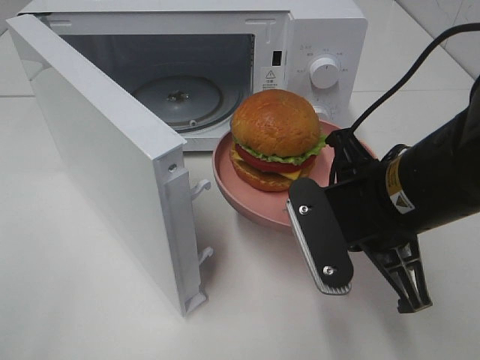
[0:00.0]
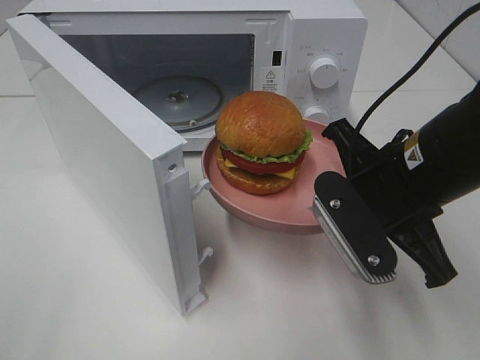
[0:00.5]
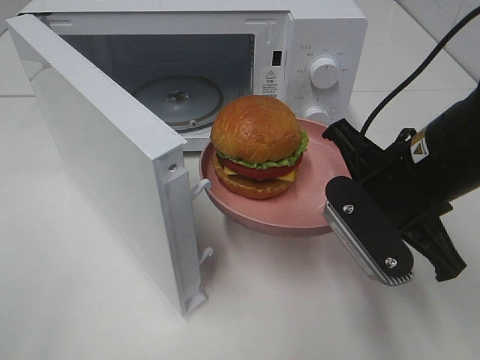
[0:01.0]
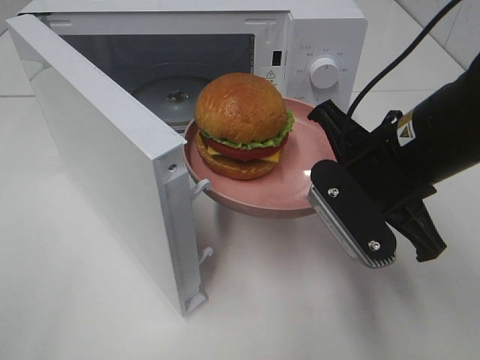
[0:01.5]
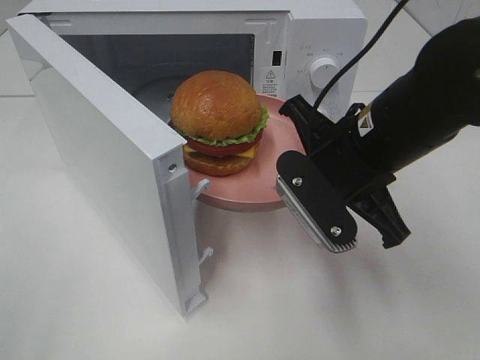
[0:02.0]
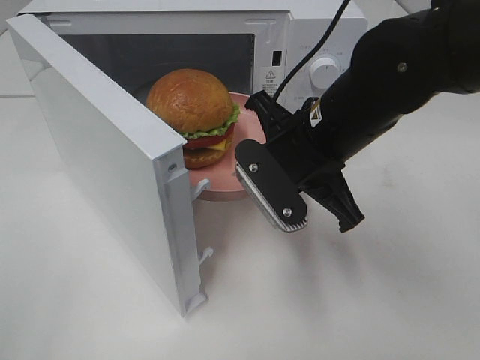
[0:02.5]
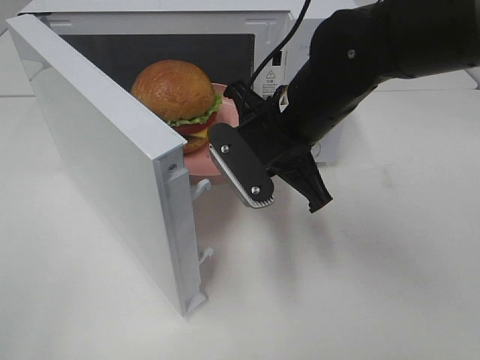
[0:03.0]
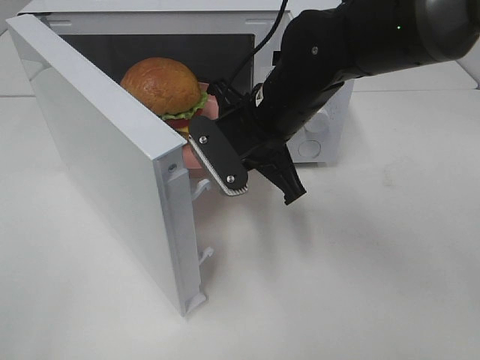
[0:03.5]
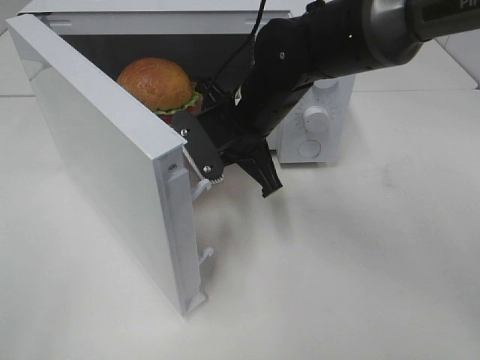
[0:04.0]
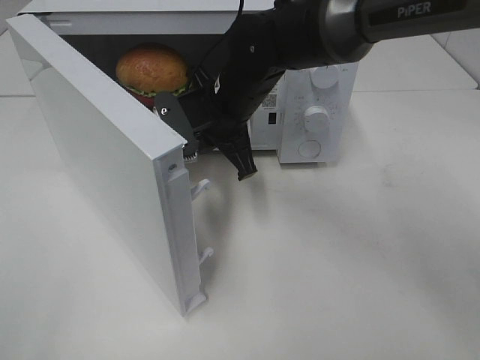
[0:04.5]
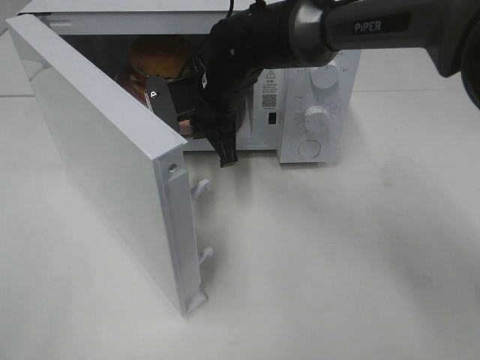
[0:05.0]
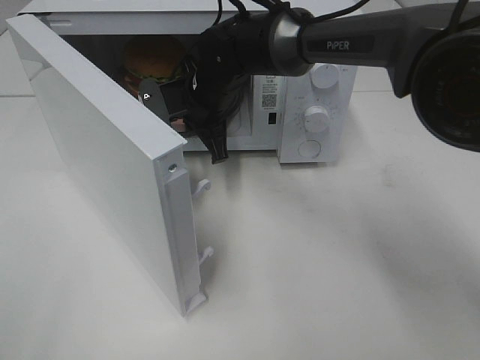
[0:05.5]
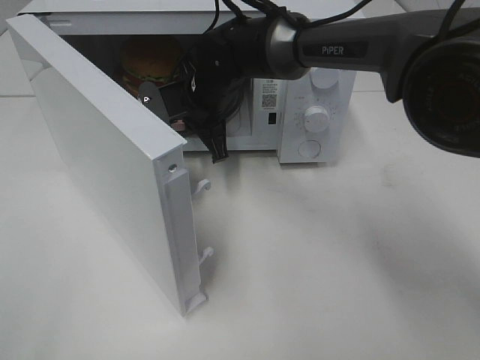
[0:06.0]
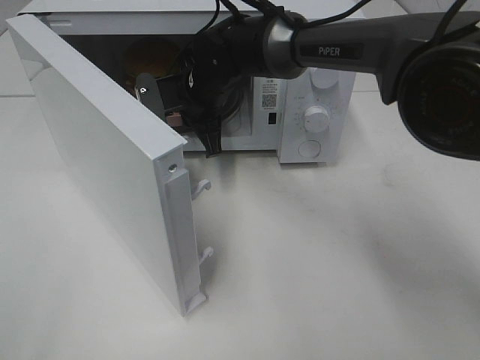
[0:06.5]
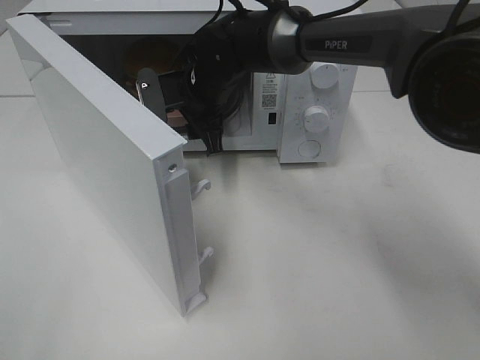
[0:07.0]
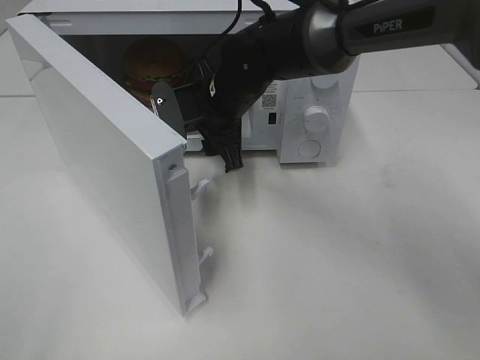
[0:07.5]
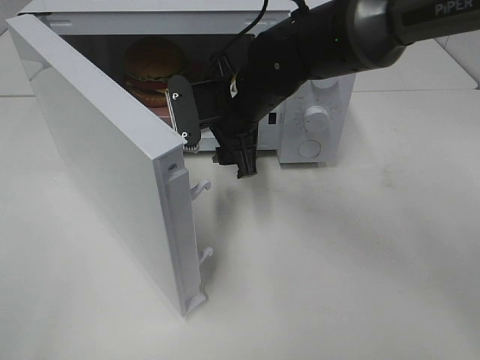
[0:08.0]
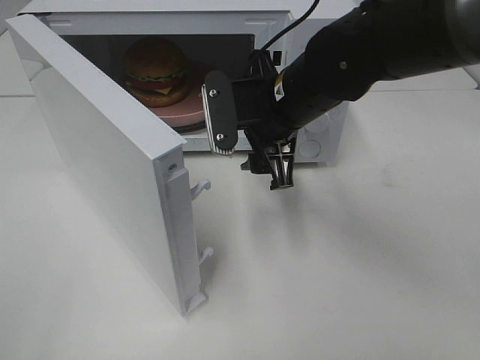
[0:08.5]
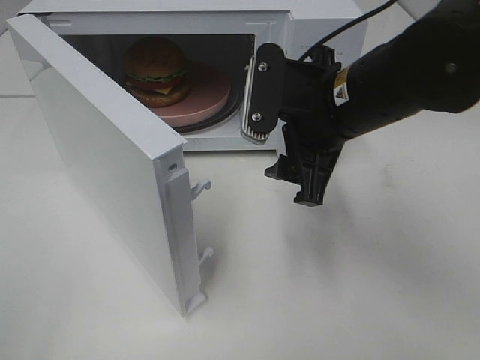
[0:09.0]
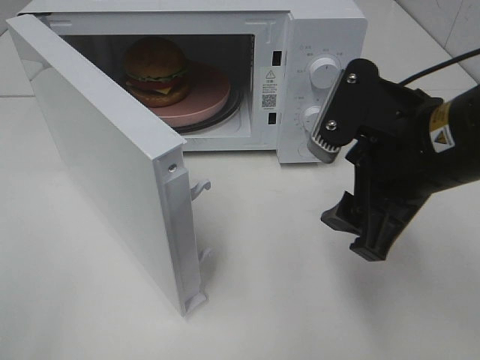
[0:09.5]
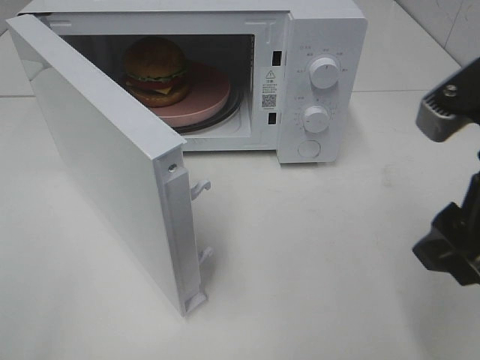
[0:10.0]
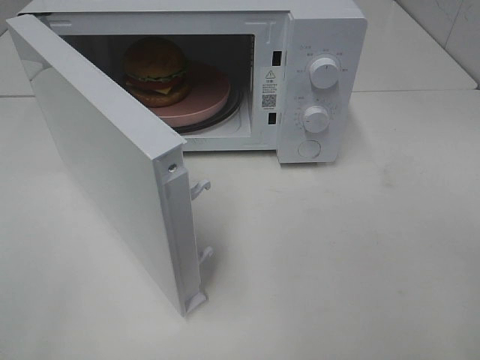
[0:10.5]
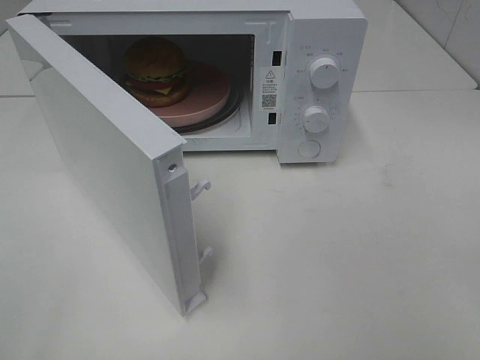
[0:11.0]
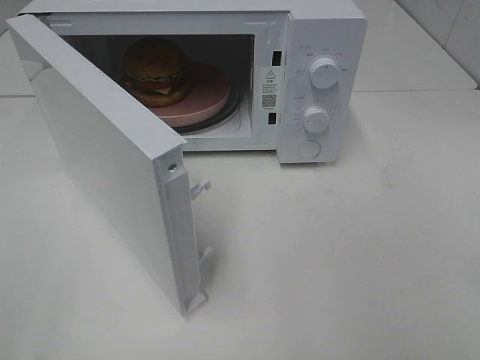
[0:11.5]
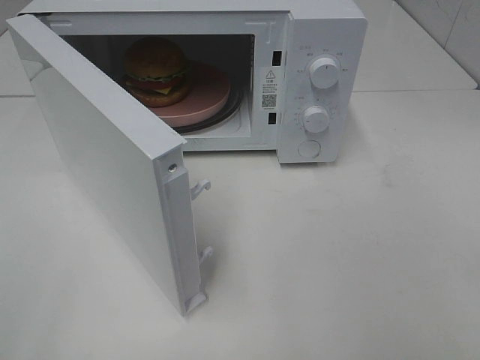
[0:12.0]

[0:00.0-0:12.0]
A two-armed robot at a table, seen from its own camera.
Task of the whole recording: Heat the burger.
Step, 0.0 to 6.5 s: Right hand: place the plate in the microwave.
0.0 to 2.0 s: The right gripper moves roughly 5 cm.
2.0 to 4.0 s: The right gripper is displaced forward and to the left by approximately 15 cm.
4.0 to 6.0 s: The right gripper heads forward and to the left, covering roughly 10 cm.
6.0 to 8.0 s: The right gripper is displaced backward by approximately 5 cm, and opens.
8.0 to 10.0 s: The right gripper goes about 30 cm backward, to the right and upward.
10.0 to 12.0 s: The right gripper goes approximately 20 cm backward and to the right.

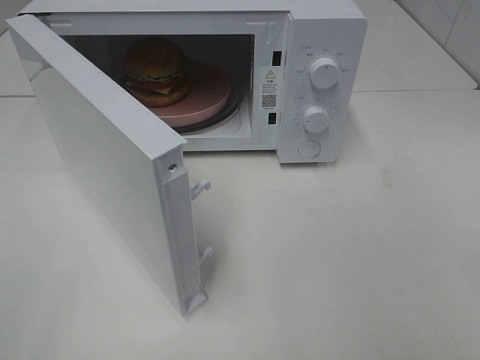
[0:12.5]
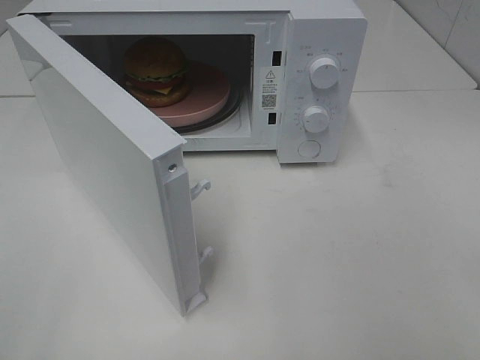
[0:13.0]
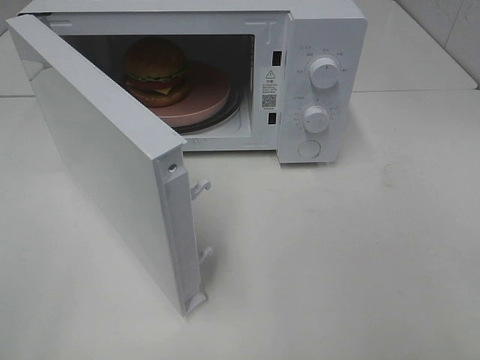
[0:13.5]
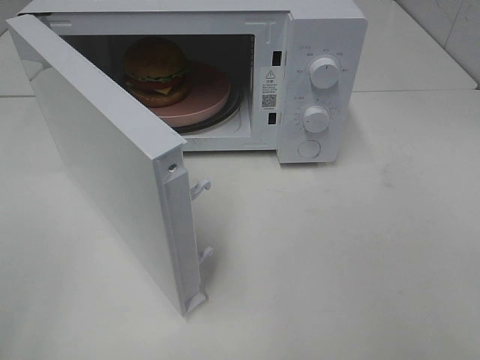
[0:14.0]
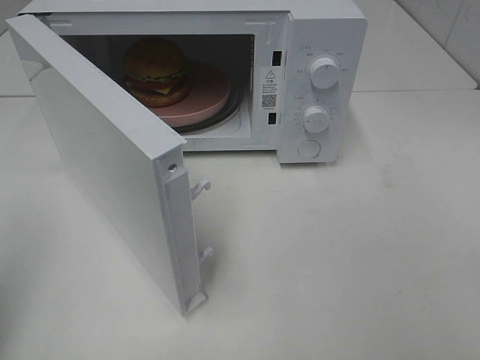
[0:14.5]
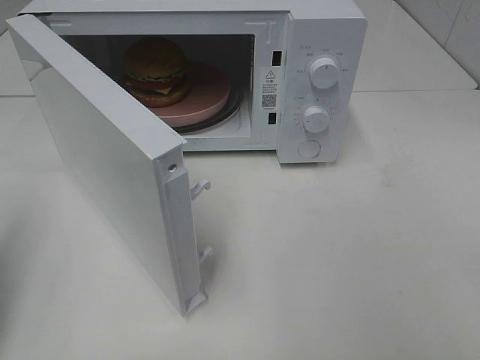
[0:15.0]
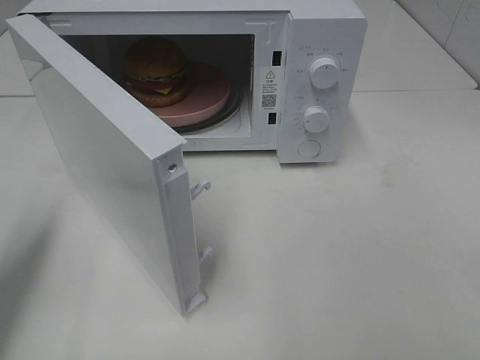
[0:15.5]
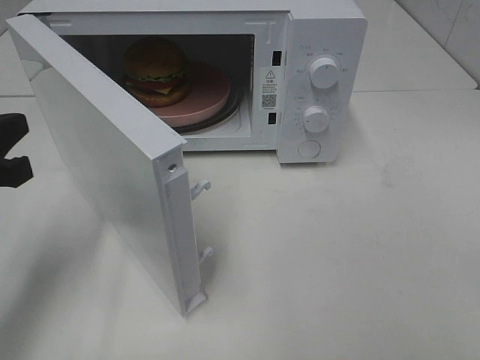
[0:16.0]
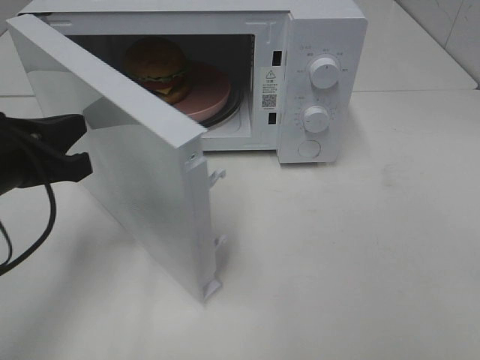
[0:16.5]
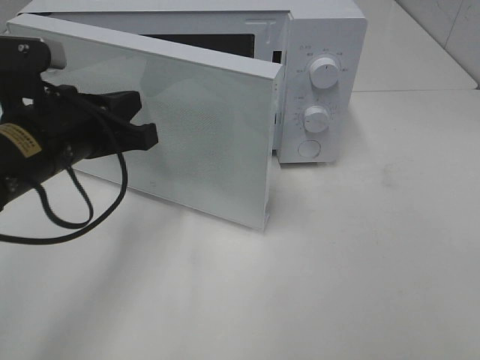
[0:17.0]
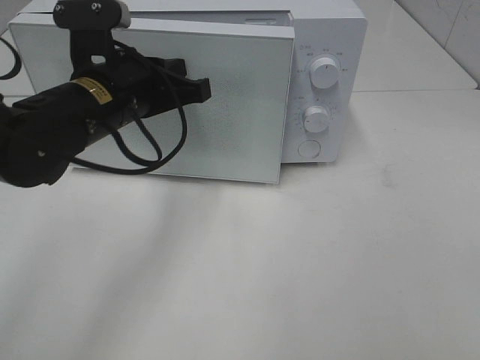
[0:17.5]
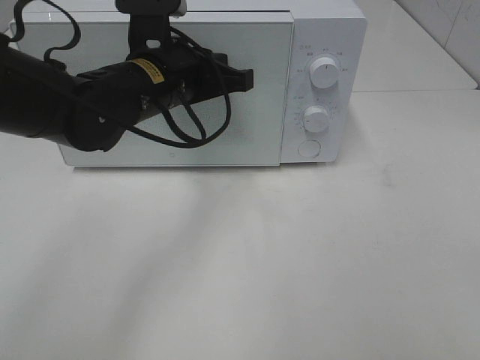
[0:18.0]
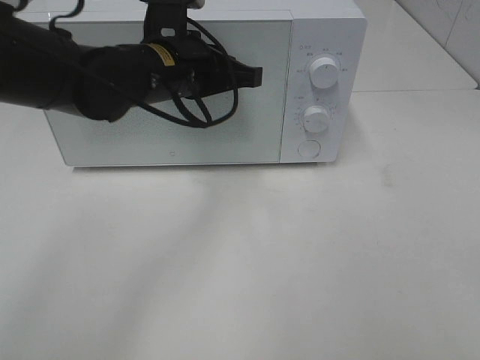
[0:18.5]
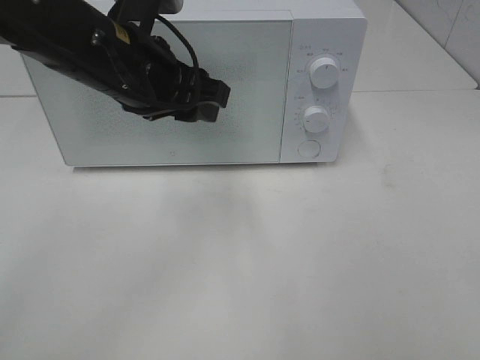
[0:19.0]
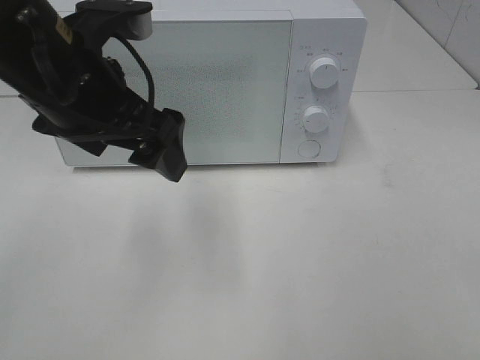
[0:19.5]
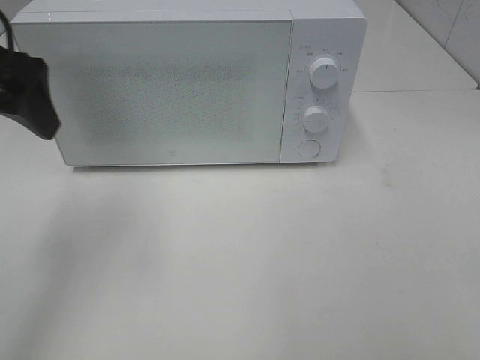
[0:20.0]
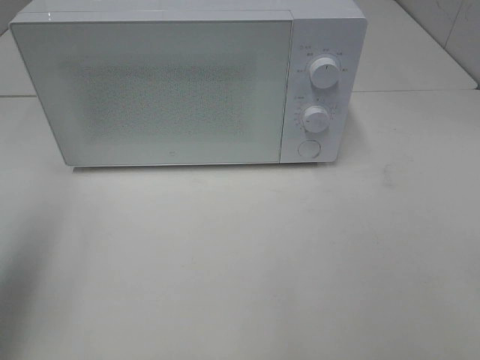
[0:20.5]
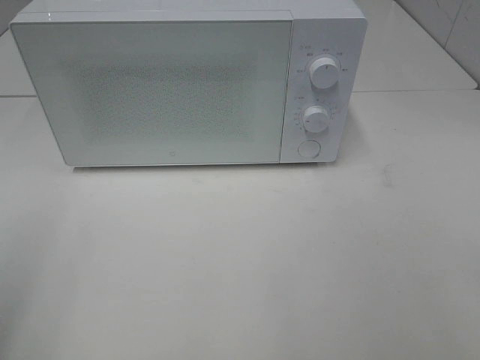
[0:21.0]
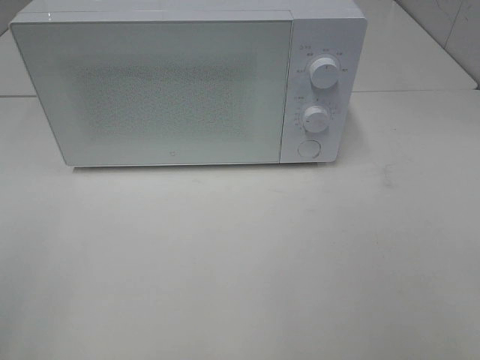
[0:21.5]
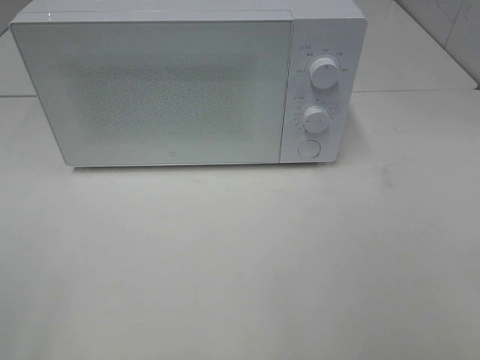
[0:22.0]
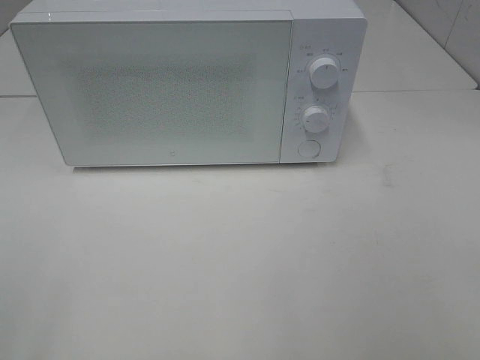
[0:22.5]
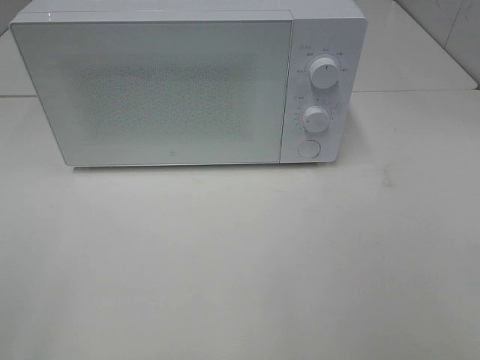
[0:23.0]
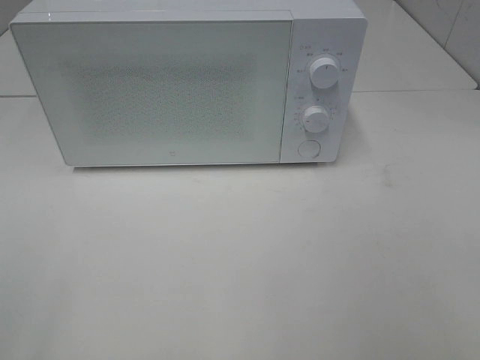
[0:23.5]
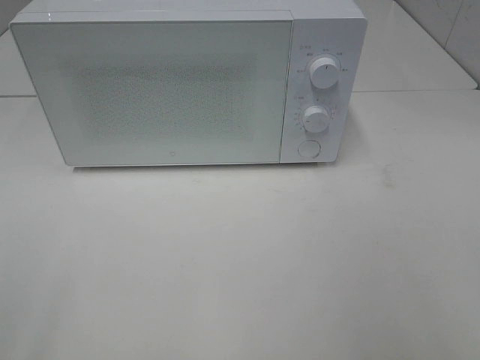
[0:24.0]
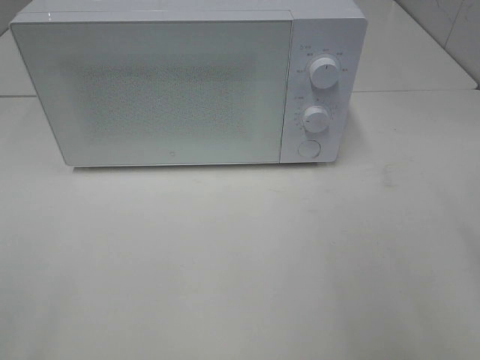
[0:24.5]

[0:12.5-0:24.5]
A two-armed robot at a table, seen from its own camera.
Task of the whole recording: Heat the burger.
Step, 12.5 to 18.5 s: Left hand: close the microwave door.
14.5 to 16.5 s: The left gripper is displaced forward, downward and to the right by approximately 20 cm.
16.5 to 18.5 s: The left gripper goes about 20 cm to the right and forward.
18.5 to 20.5 s: The left gripper heads to the left and backward, covering roughly 30 cm, and opens.
20.5 to 22.5 s: The left gripper travels backward by roughly 20 cm.

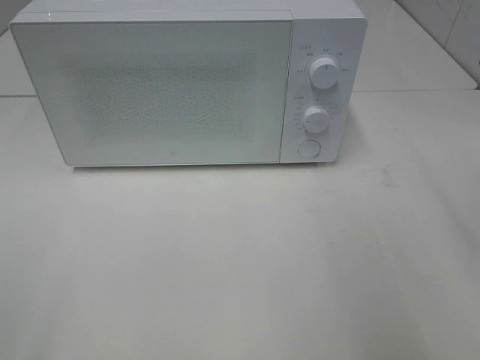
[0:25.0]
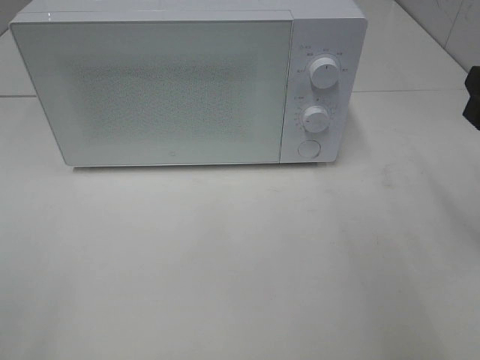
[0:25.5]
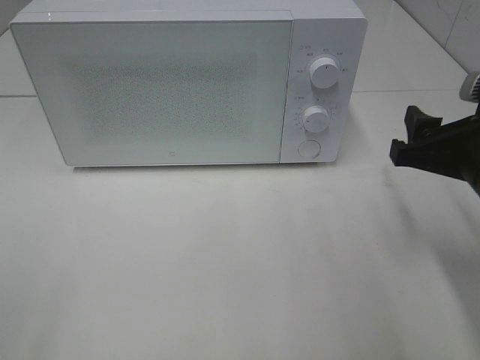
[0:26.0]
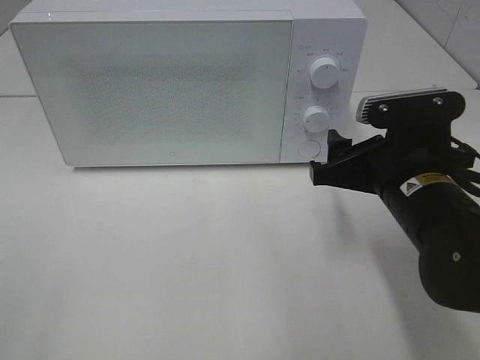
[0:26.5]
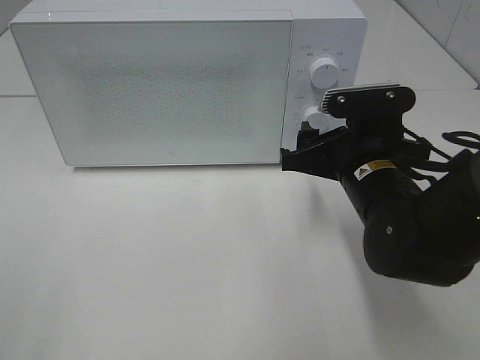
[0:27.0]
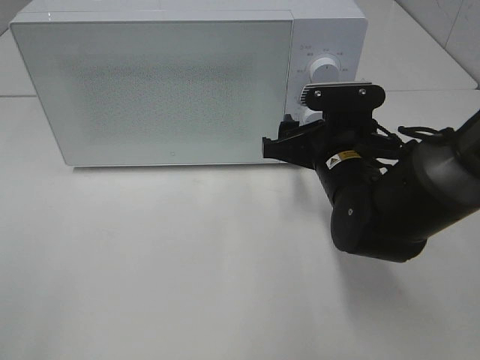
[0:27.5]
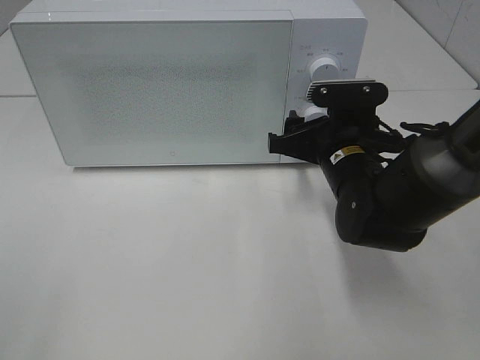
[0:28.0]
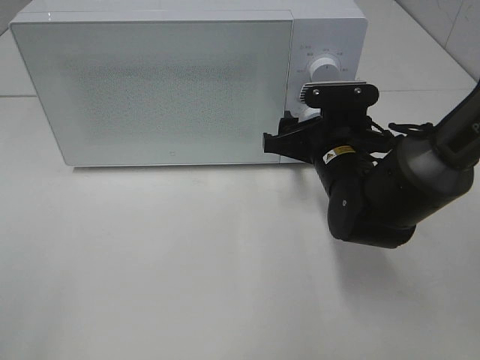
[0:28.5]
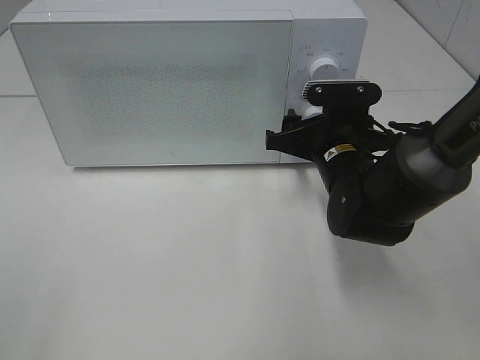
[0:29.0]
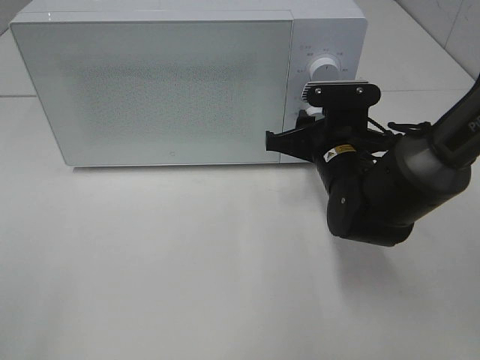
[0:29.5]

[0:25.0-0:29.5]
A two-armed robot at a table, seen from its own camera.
Task of the whole recording: Heat the burger.
25.0 to 27.0 s: The right gripper travels to the left, downward and forward by approximately 20 cm.
27.0 to 29.5 s: The right gripper heads forward, covering approximately 5 cm, and closes its fingers.
